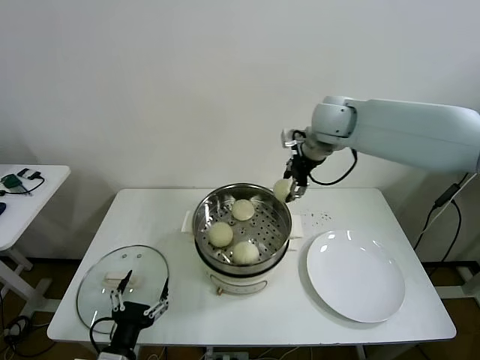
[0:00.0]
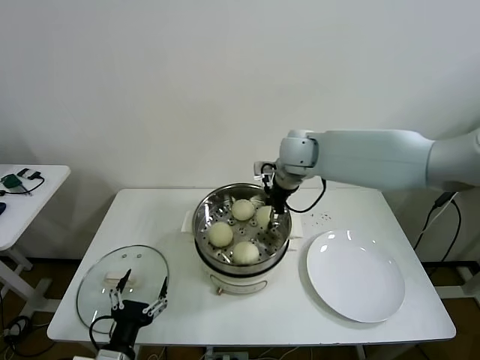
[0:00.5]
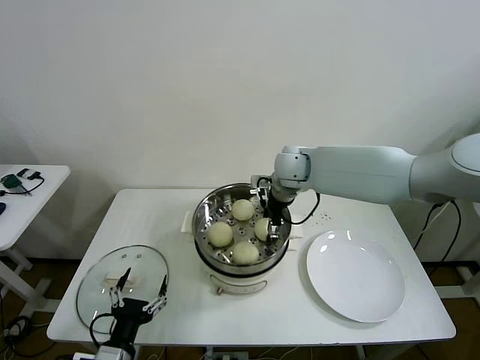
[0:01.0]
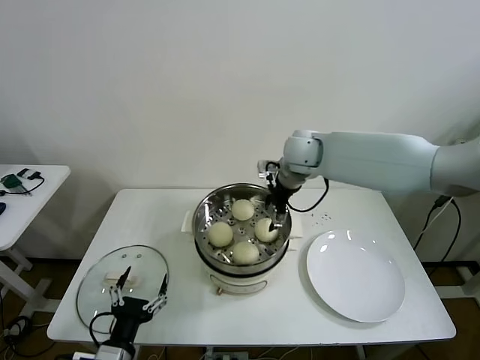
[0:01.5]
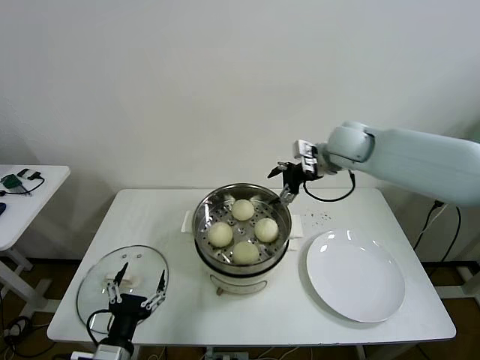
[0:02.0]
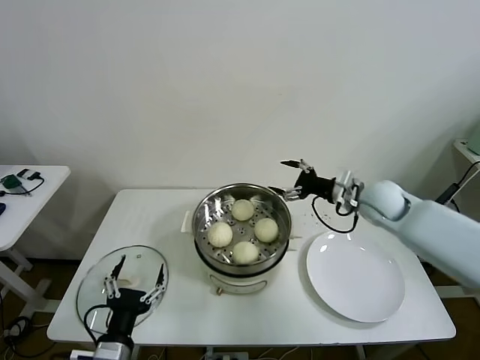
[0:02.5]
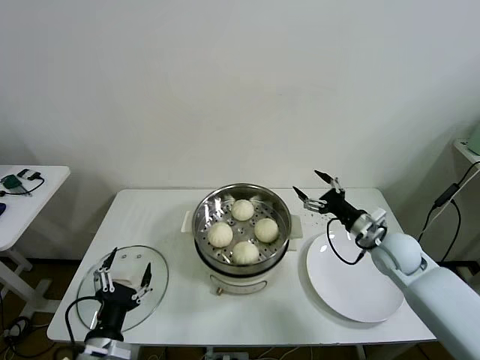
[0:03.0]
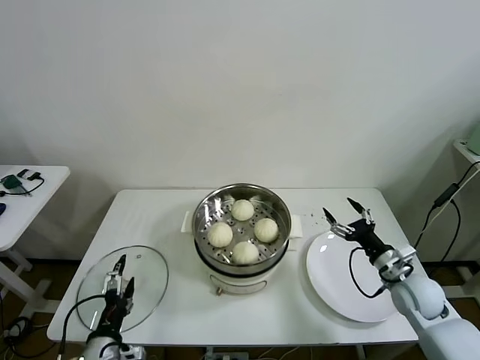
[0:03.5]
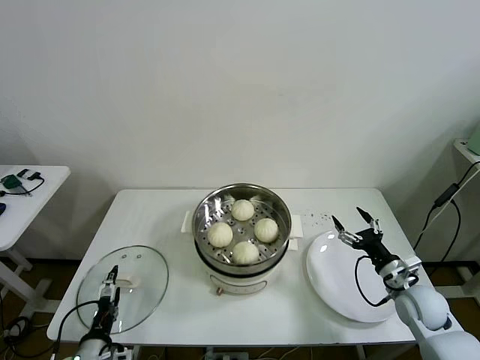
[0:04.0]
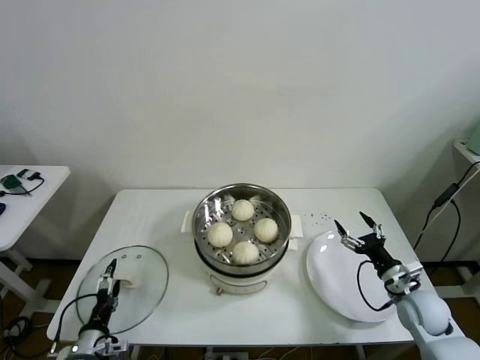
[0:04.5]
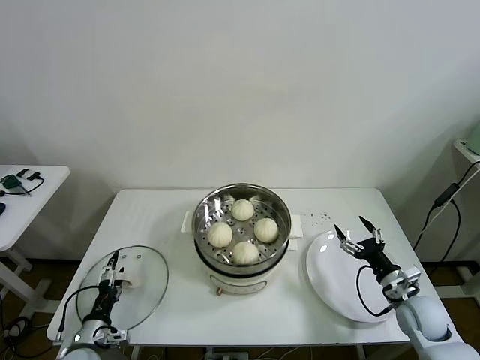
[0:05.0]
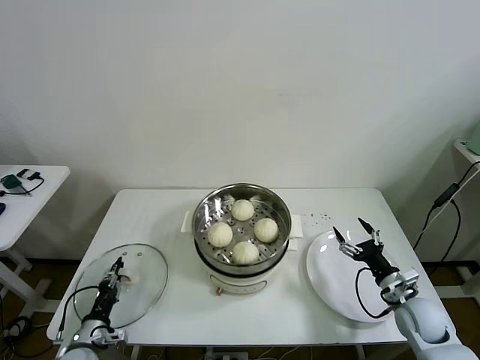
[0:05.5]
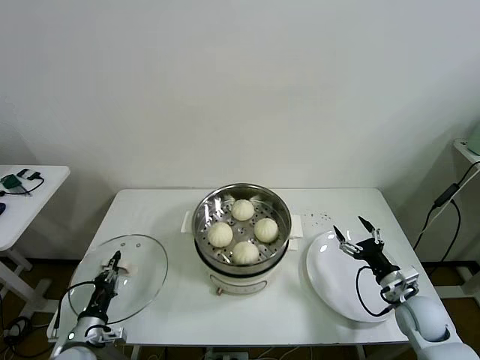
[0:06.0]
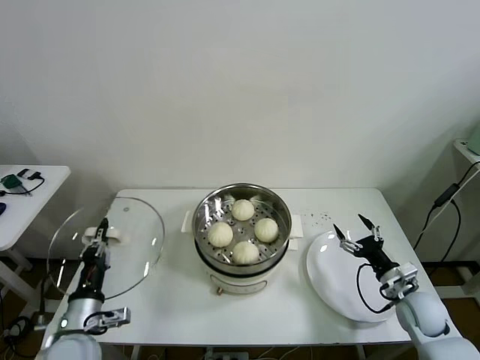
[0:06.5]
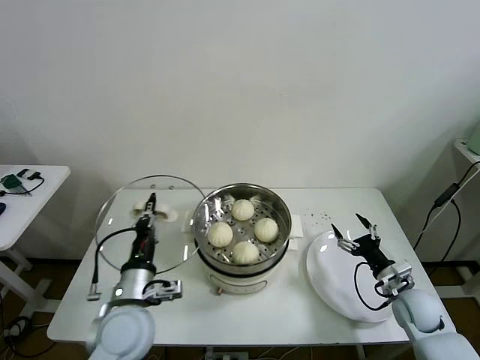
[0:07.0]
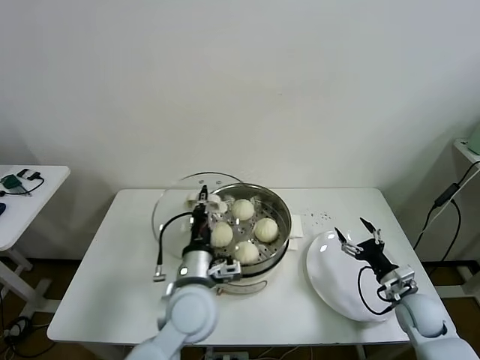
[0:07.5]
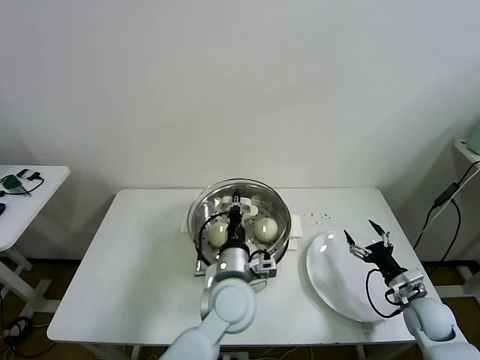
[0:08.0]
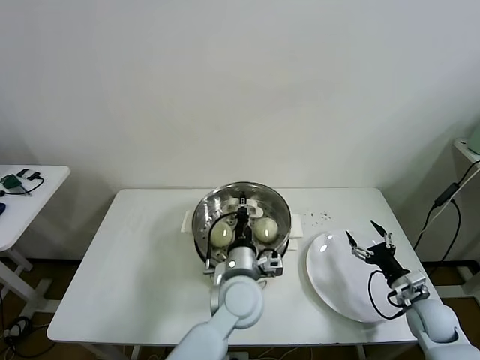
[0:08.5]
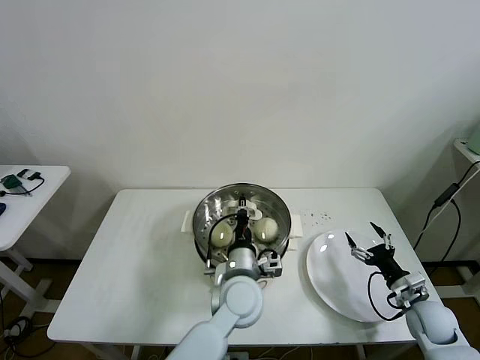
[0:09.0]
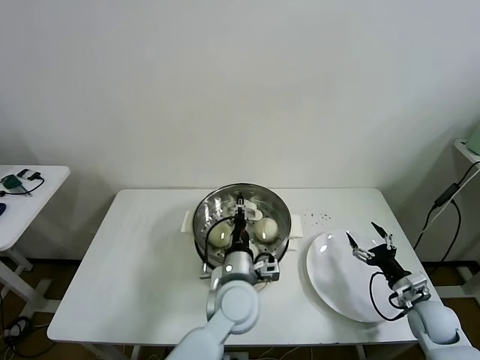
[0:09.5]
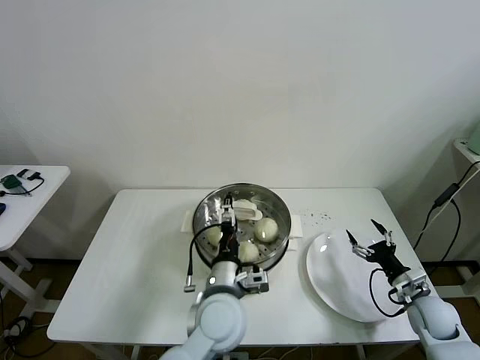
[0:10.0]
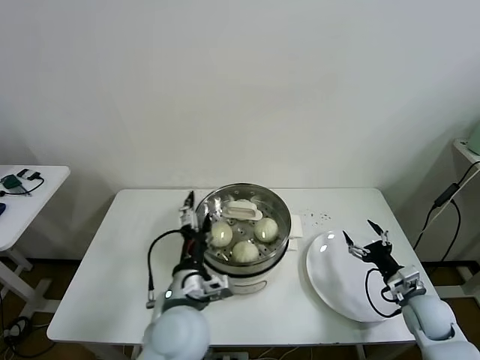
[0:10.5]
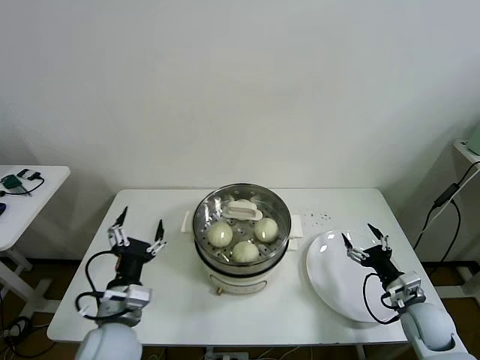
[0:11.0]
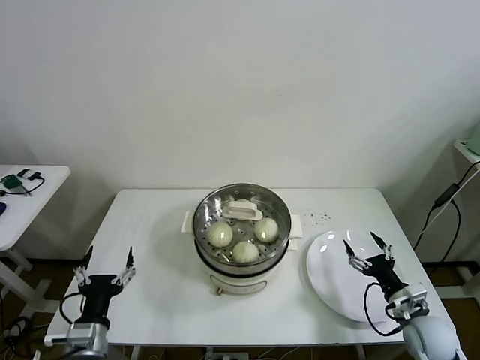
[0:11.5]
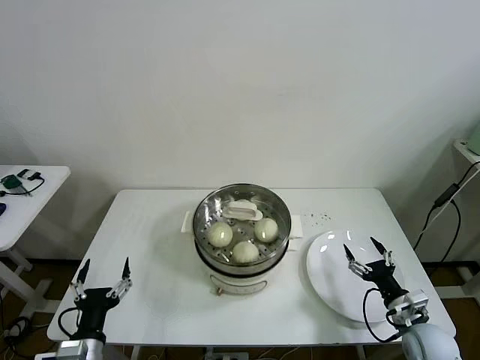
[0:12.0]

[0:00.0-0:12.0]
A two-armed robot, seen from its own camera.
Task of the whole recording: take steamed baozi put them in steamer then cover it.
Step, 0:01.5 to 0:05.5: Grasp the pot lid with left gripper.
Step, 0:06.0 to 0:09.5: Place the pot lid on the steamer with left gripper.
0:00.0 to 0:02.0: The right gripper shifts roughly 10 cm to the right and downward, and opens up.
0:02.0 to 0:04.0: The right gripper travels downward, backward and to the right by roughly 40 cm. Meanwhile the left gripper is displaced downward and to the left by approximately 10 cm.
0:04.0 to 0:06.0: The left gripper ends up approximately 5 cm from where it was, and closes up.
0:06.0 to 0:08.0: The left gripper goes roughly 40 cm to the right and upward.
0:08.0 to 0:10.0: The left gripper opens up.
0:10.0 to 0:12.0: The right gripper travels backward by about 5 cm. The left gripper shifts some 30 cm to the left and backward.

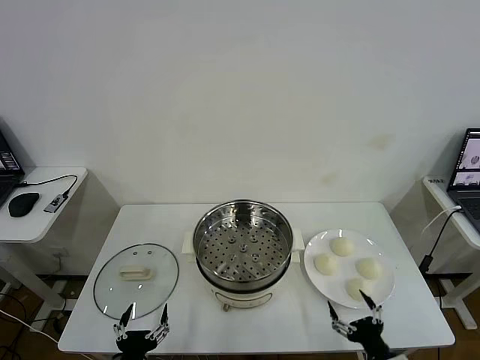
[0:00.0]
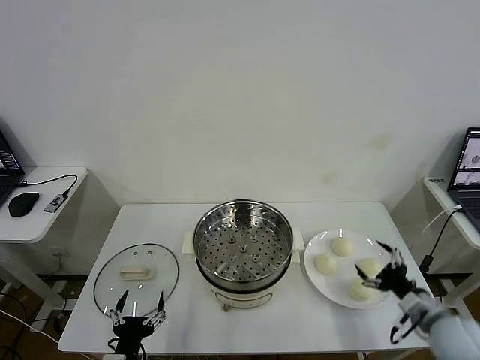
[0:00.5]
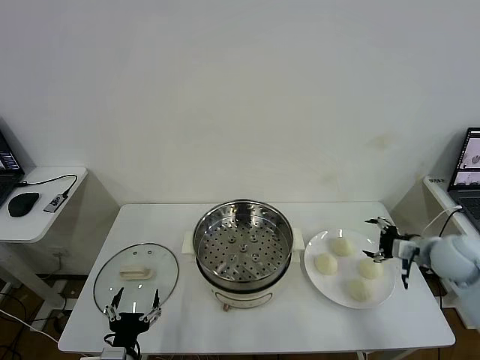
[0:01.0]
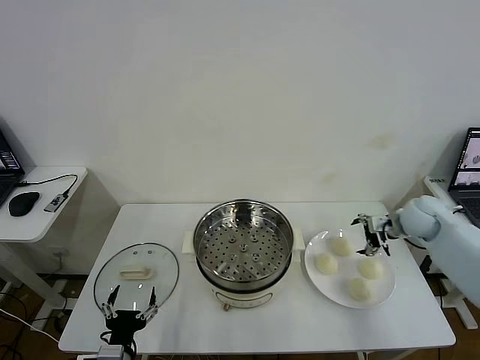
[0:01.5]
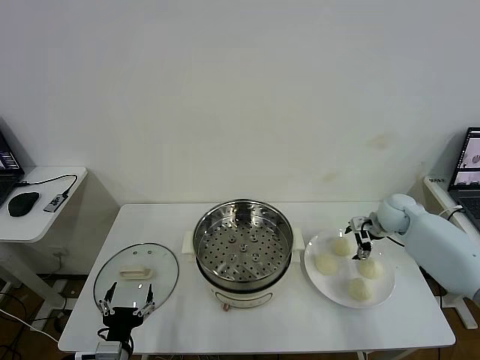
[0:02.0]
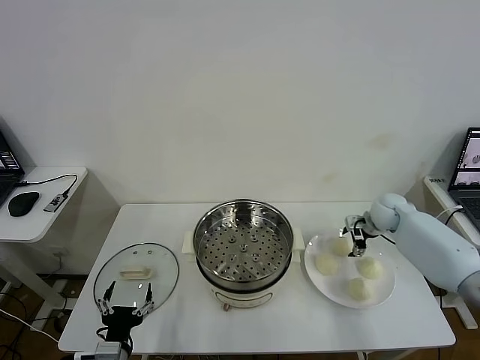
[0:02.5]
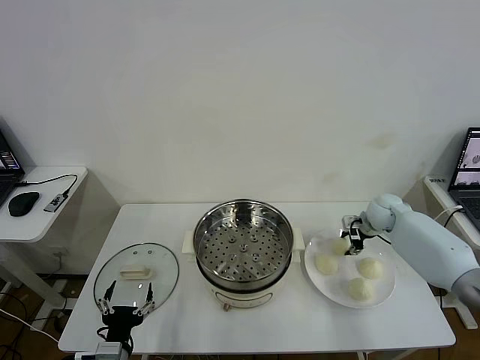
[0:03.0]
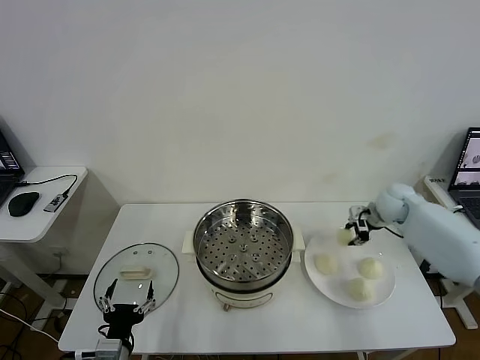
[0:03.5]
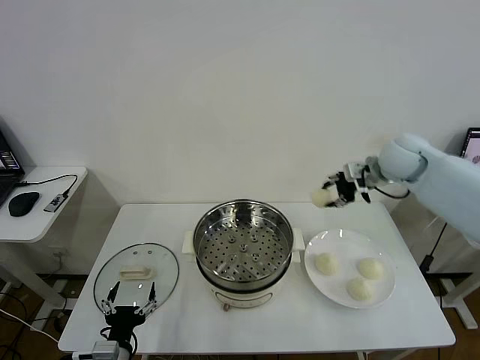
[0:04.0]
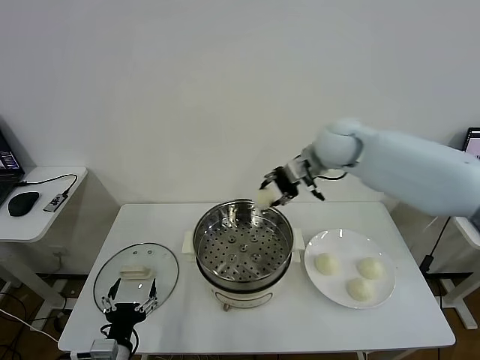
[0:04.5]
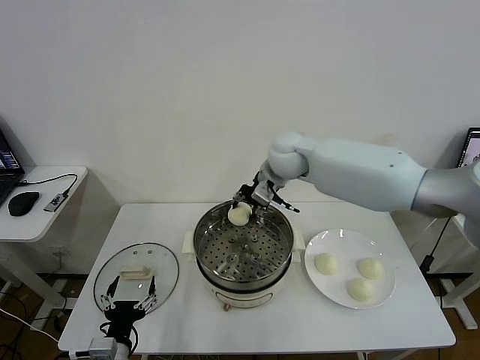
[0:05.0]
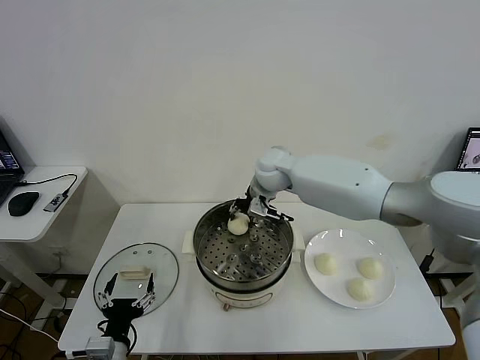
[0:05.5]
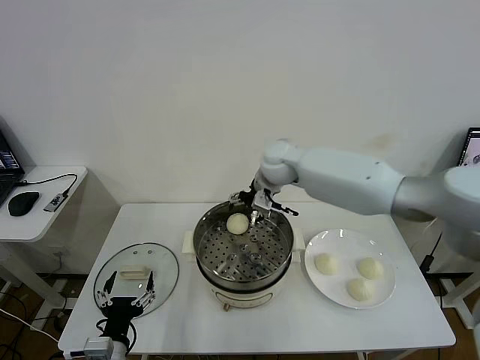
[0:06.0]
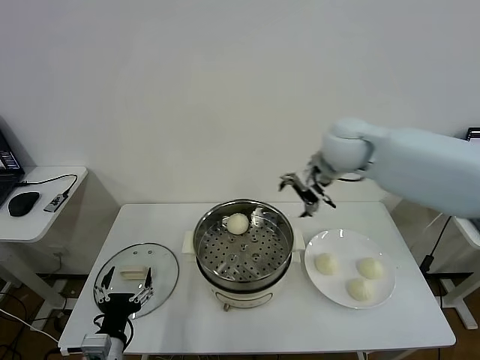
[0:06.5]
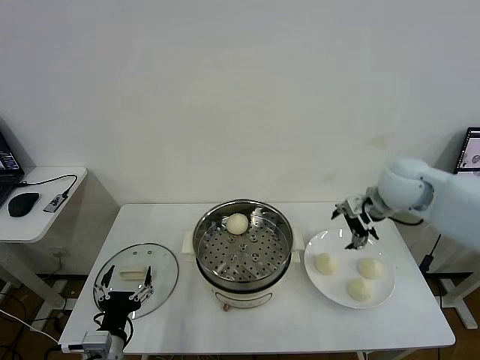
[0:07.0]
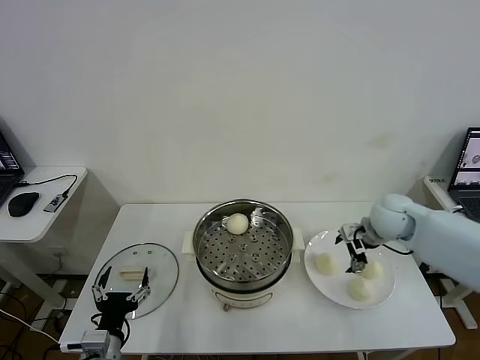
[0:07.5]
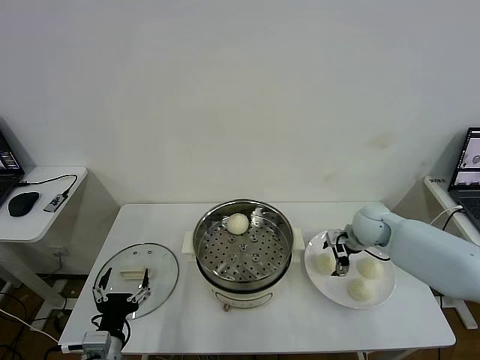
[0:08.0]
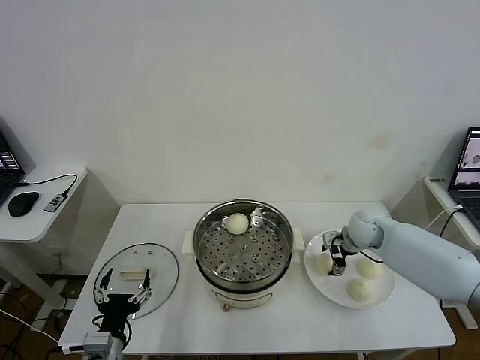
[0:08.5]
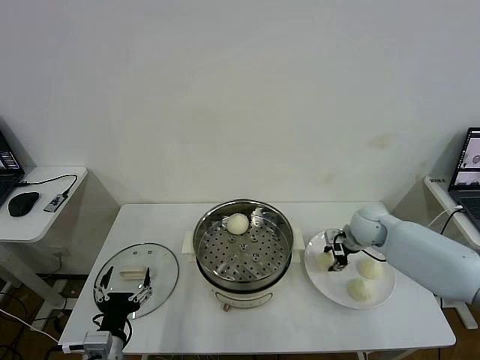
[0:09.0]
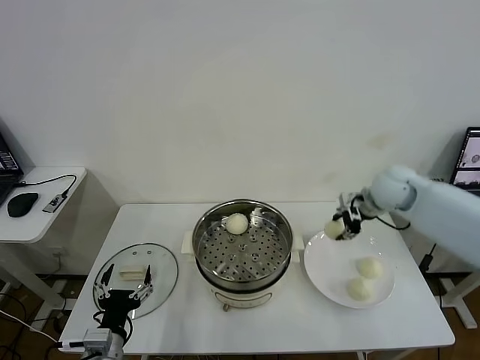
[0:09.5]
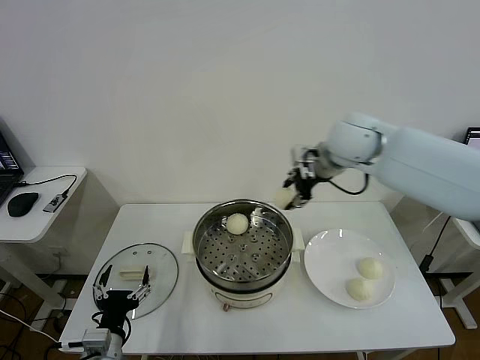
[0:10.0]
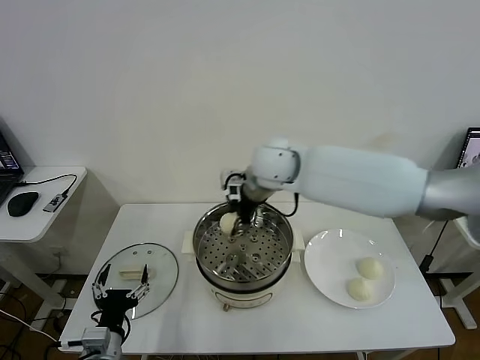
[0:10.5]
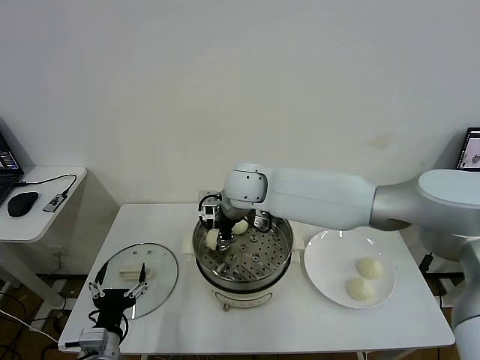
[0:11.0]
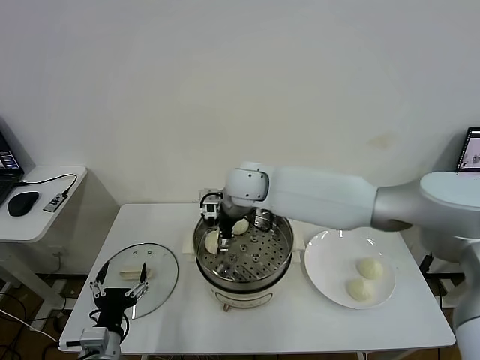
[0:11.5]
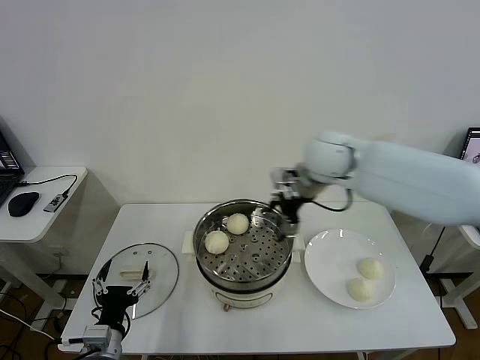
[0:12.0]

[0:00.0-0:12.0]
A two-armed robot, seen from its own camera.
Task of the whole recording: take steamed baozi put them in steamer then cover it.
Step, 0:00.0 to 0:03.0: Grasp the baozi in the plate with right gripper.
Step, 0:03.5 to 0:05.5: Place the baozi on the steamer with right gripper.
Step, 0:06.0 to 0:09.0: Grasp the baozi in the plate with right gripper.
Step, 0:09.5 to 0:11.5: Place the baozi on the steamer with right gripper.
0:02.0 to 0:04.0: The right gripper is displaced upward and to the left by roughly 20 cm, and closes.
0:04.0 to 0:06.0: The right gripper goes some 20 cm to the left, and opens up.
0:06.0 to 0:08.0: The right gripper travels to the right and downward by some 25 cm.
0:08.0 to 0:10.0: The right gripper goes approximately 25 cm upward and to the left, and closes its fingers.
0:10.0 to 0:12.0: The right gripper reaches approximately 20 cm to the left, then returns, and opens its fingers.

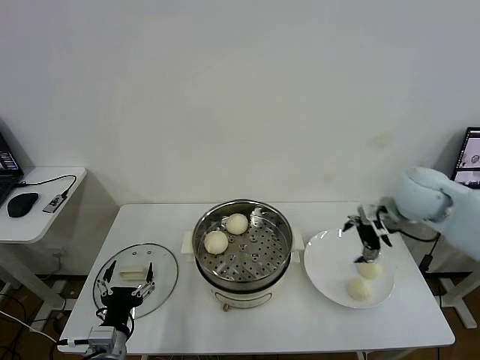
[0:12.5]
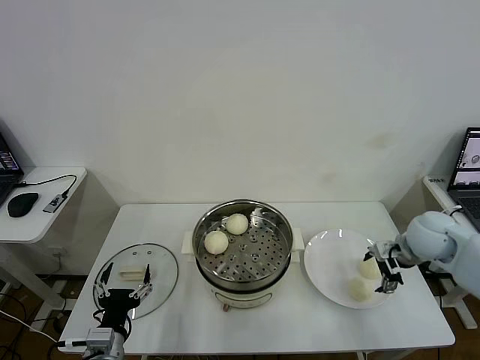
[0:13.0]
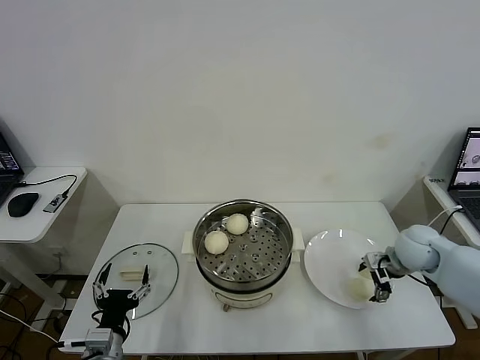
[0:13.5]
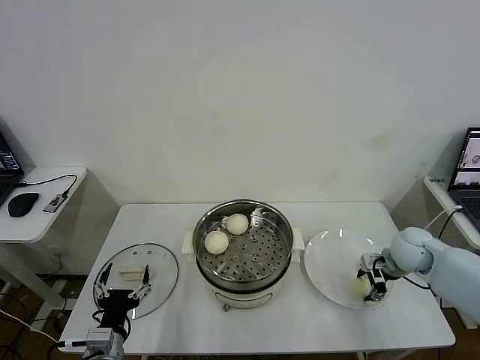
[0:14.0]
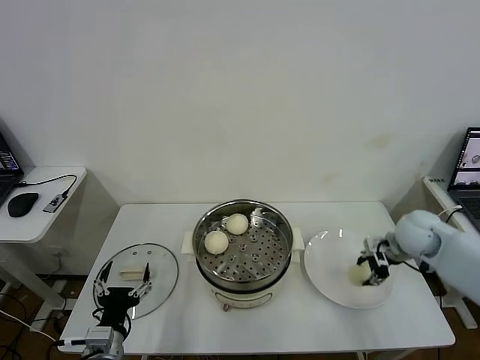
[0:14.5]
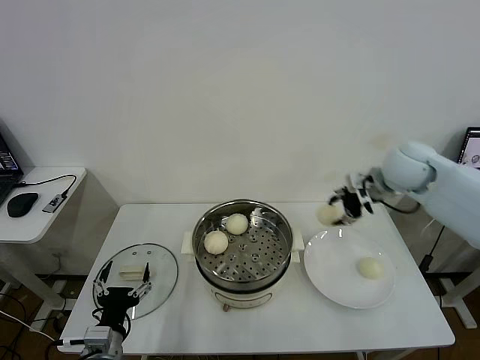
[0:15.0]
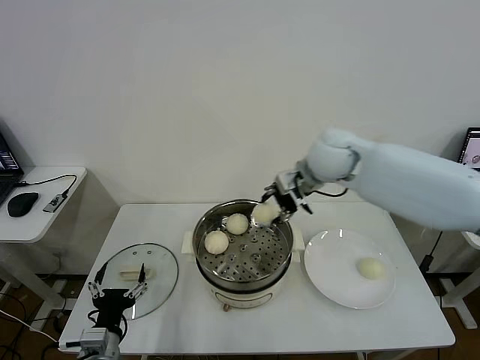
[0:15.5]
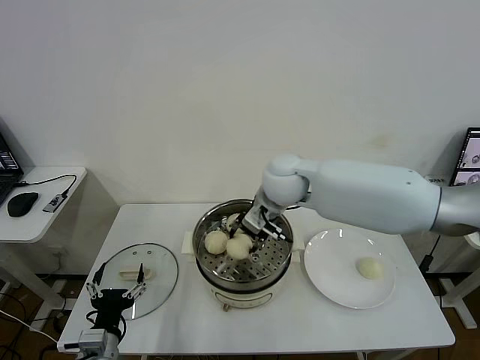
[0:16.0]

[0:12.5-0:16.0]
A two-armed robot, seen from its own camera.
Task of the whole recording: take steamed baozi put them in steamer then cover it.
Step, 0:12.5 to 0:14.0: Grasp the baozi in the plate with right gripper.
0:12.5 to 0:14.5: The right gripper shifts about 10 cm downward, and closes its fingers.
0:14.5 to 0:16.0: The right gripper travels to the left by approximately 30 cm.
